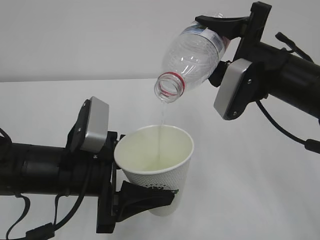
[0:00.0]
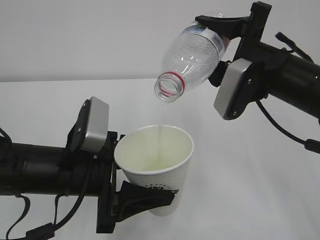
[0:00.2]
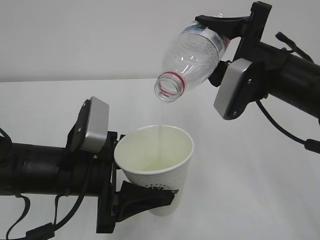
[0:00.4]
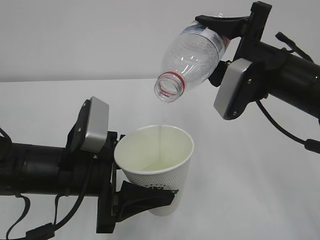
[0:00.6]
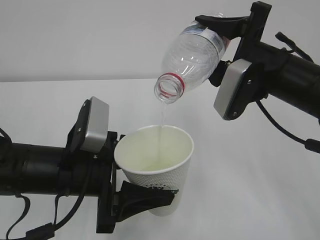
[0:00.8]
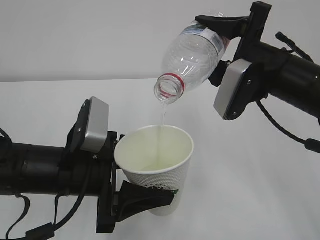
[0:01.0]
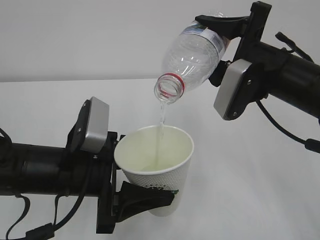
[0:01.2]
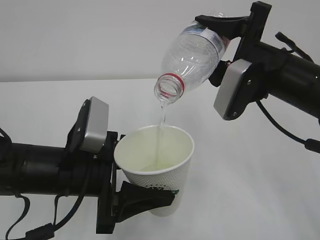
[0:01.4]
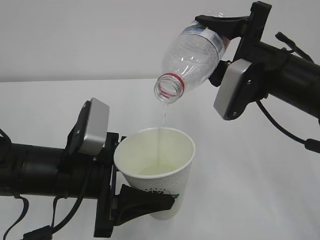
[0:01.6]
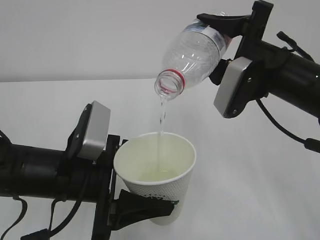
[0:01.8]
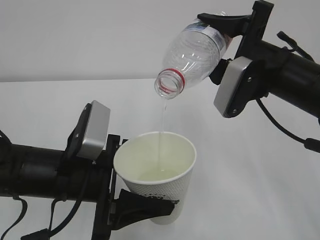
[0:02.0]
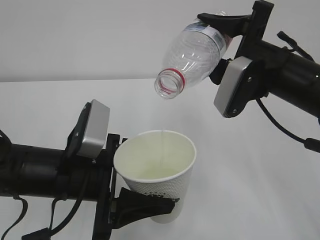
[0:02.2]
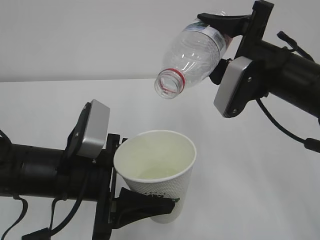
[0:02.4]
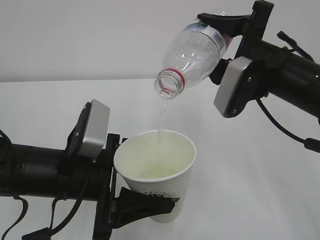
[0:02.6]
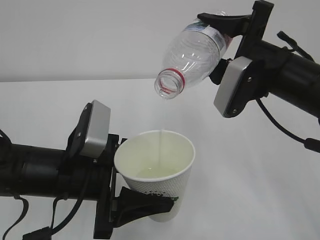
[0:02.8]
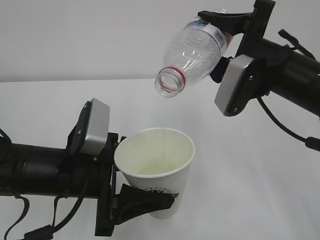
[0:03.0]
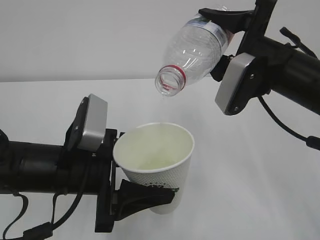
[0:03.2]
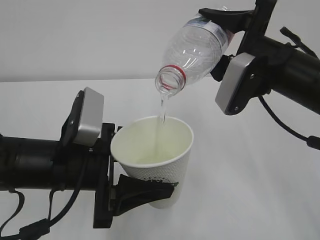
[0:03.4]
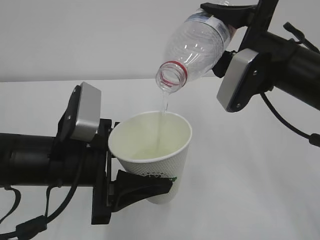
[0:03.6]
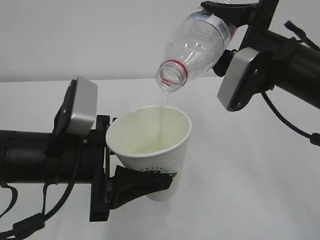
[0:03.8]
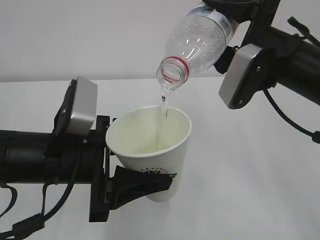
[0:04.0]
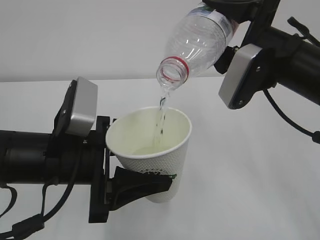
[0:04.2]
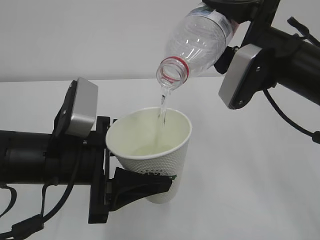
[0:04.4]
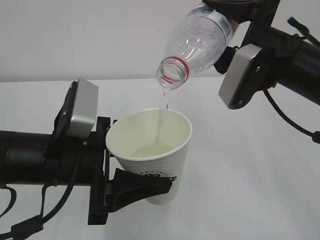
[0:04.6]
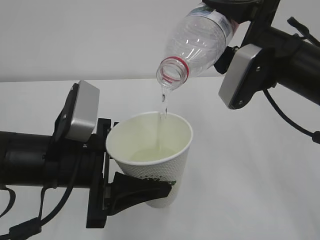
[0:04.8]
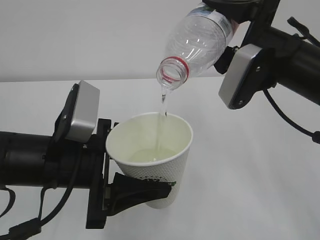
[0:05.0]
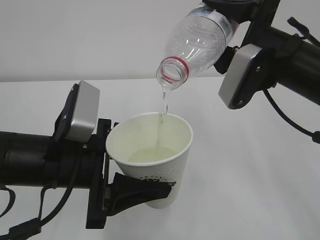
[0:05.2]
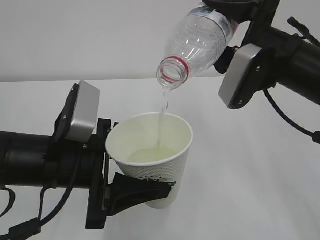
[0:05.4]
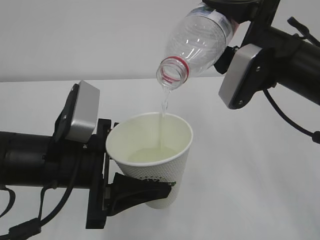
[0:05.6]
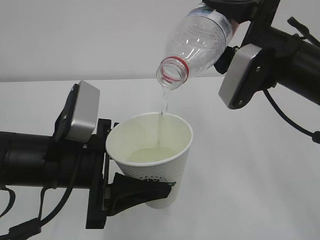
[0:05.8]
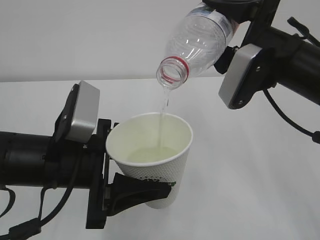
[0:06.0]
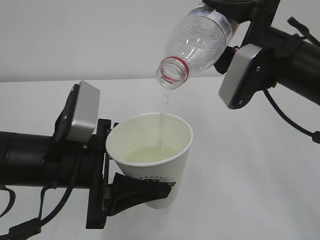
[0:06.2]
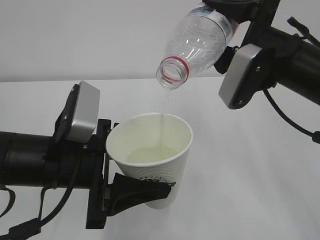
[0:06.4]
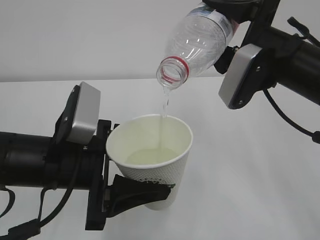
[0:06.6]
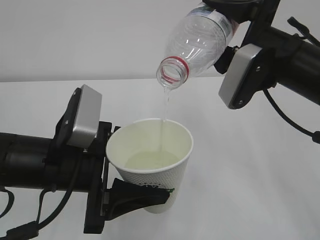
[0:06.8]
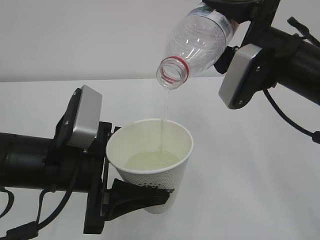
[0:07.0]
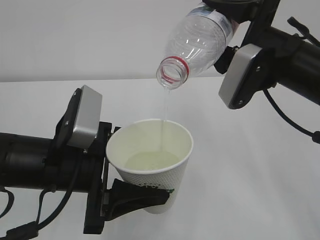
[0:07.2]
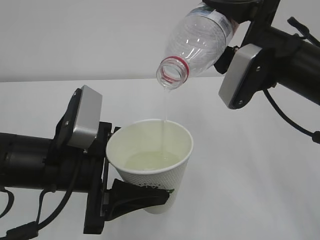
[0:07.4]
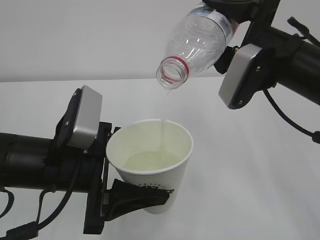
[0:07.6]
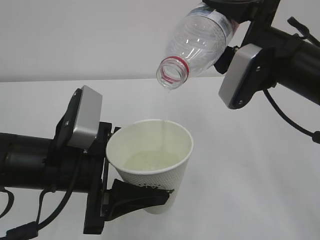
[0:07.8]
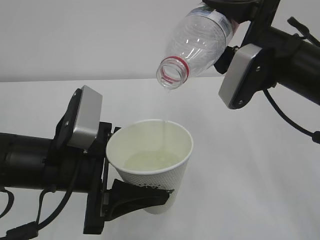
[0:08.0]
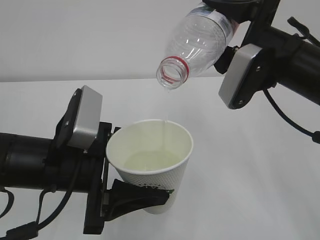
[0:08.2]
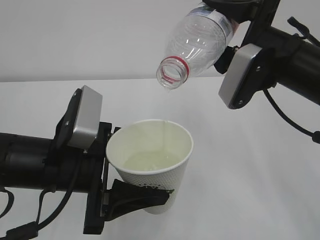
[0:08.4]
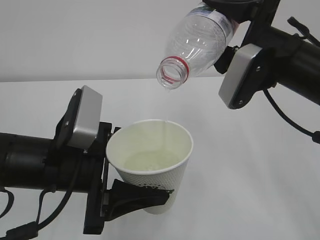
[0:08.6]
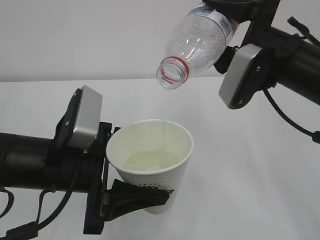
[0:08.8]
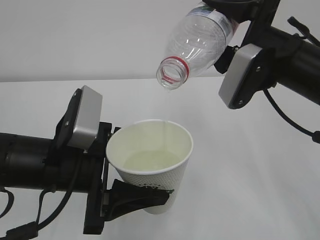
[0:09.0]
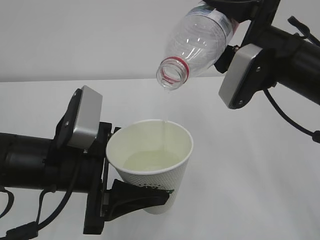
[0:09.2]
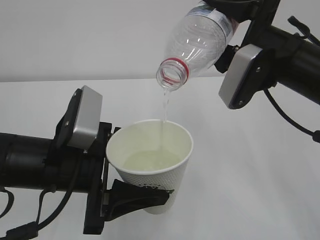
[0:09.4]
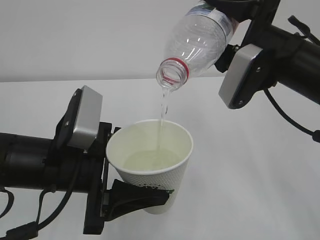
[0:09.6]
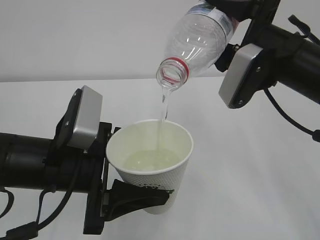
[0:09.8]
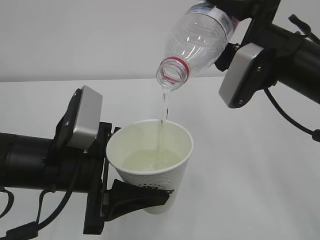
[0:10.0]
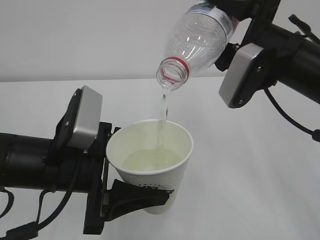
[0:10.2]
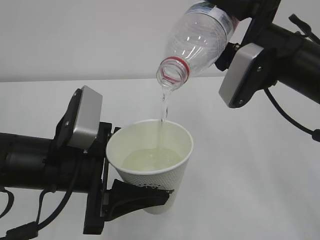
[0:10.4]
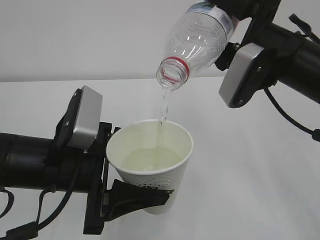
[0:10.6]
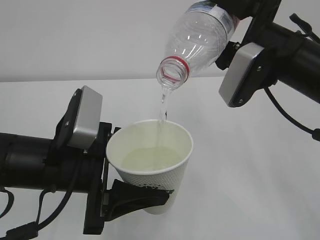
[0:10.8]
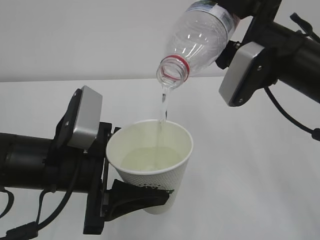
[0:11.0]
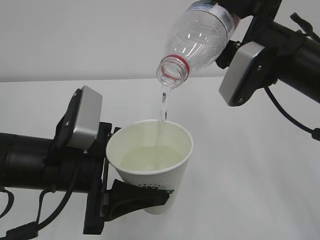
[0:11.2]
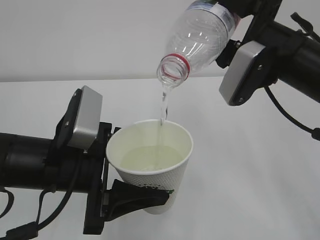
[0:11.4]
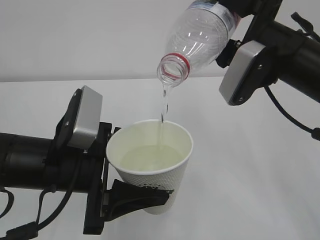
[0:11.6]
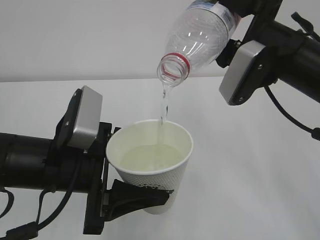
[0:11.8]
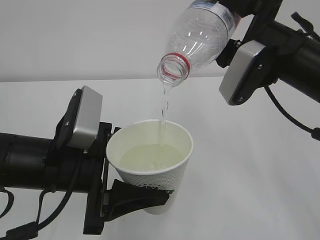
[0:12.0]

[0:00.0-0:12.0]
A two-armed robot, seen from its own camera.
0:00.0 to 0:03.0: Both grippers stay put.
0:04.4 to 0:12.0: Both grippers stay about where they are.

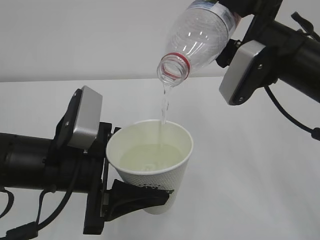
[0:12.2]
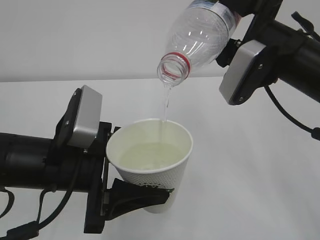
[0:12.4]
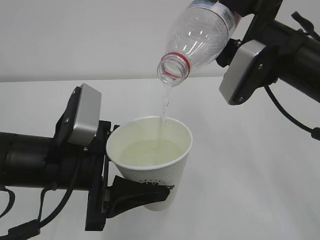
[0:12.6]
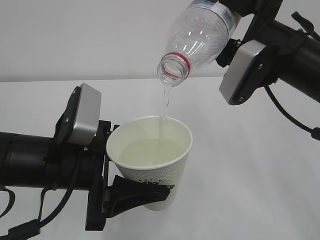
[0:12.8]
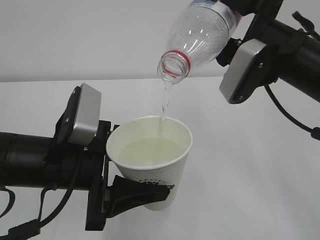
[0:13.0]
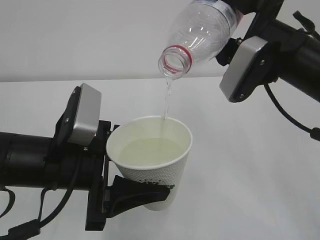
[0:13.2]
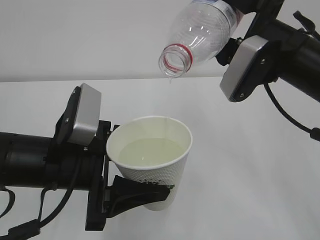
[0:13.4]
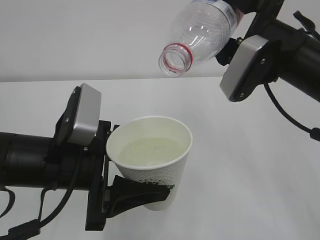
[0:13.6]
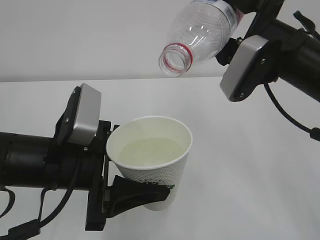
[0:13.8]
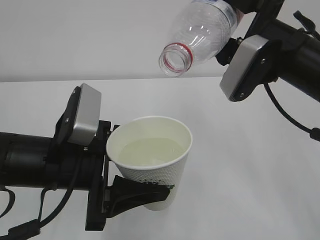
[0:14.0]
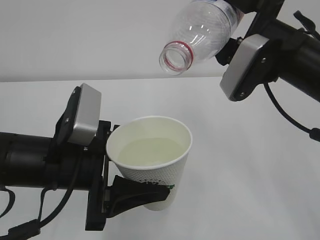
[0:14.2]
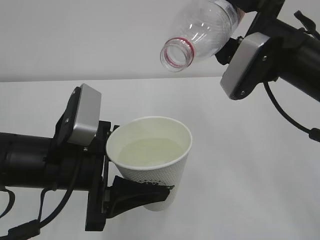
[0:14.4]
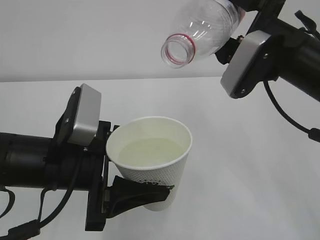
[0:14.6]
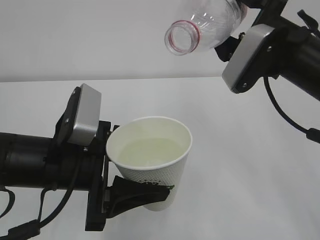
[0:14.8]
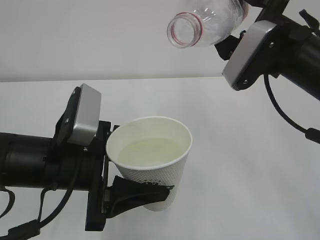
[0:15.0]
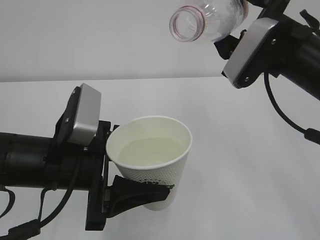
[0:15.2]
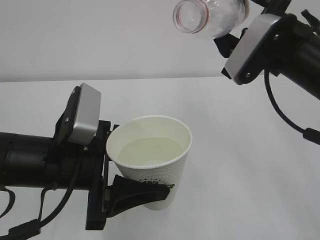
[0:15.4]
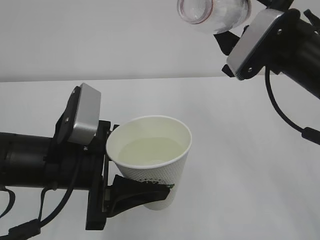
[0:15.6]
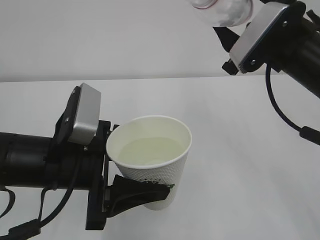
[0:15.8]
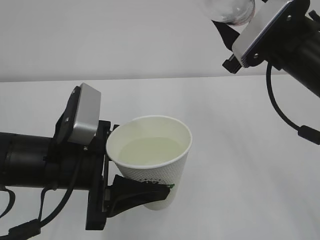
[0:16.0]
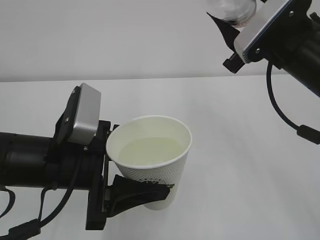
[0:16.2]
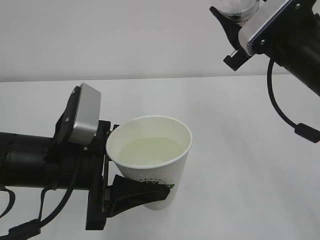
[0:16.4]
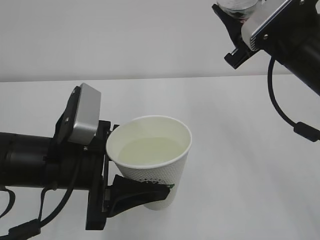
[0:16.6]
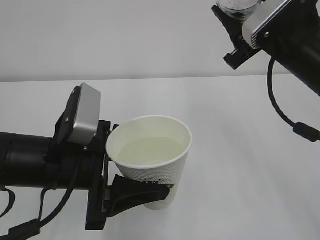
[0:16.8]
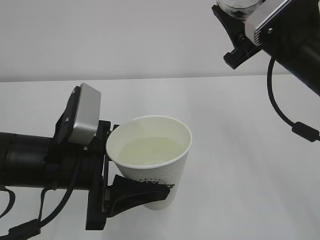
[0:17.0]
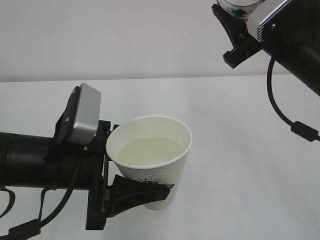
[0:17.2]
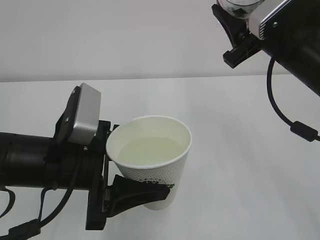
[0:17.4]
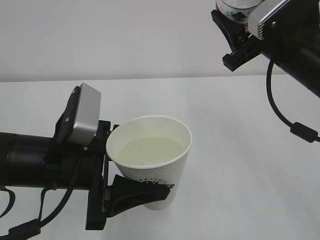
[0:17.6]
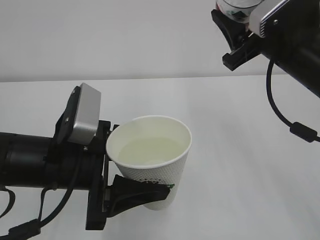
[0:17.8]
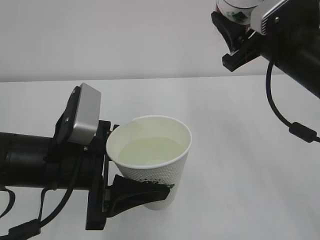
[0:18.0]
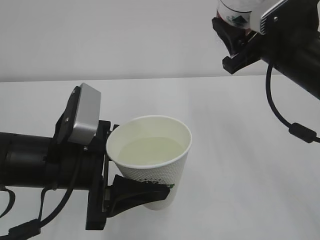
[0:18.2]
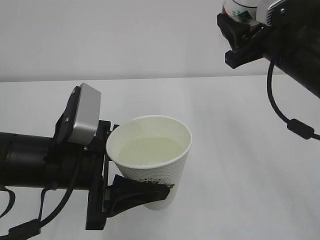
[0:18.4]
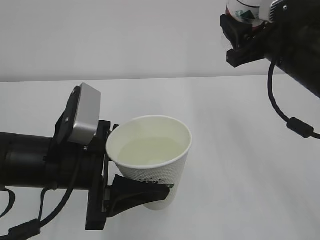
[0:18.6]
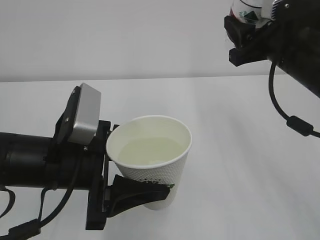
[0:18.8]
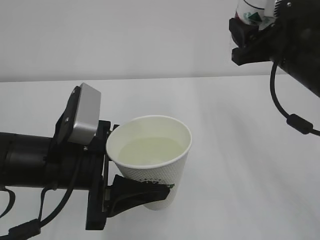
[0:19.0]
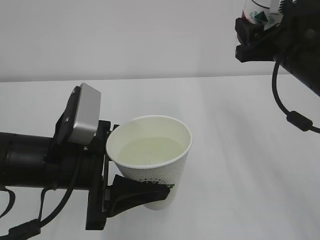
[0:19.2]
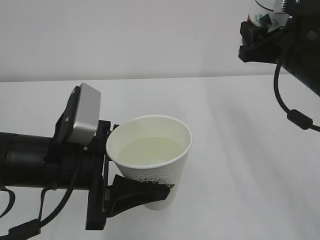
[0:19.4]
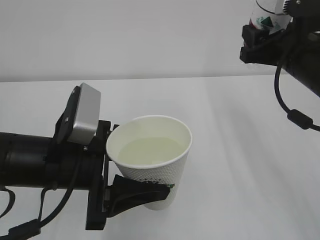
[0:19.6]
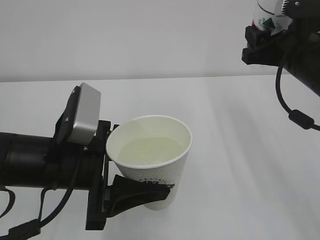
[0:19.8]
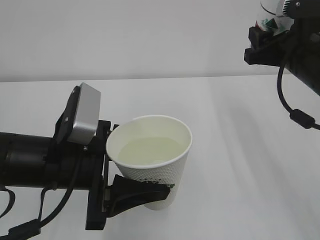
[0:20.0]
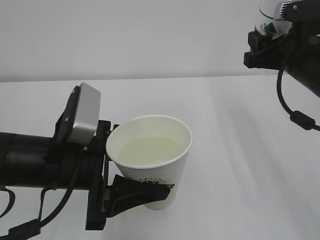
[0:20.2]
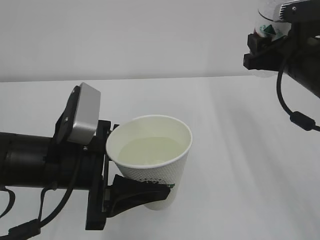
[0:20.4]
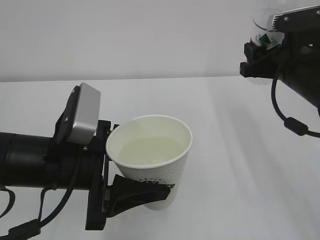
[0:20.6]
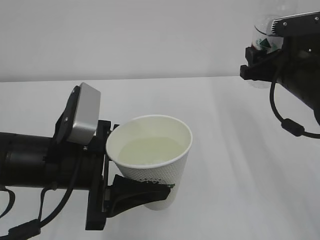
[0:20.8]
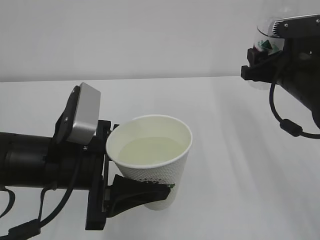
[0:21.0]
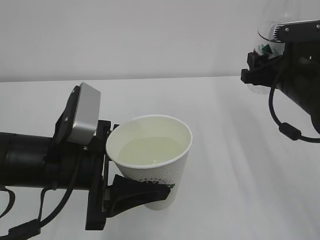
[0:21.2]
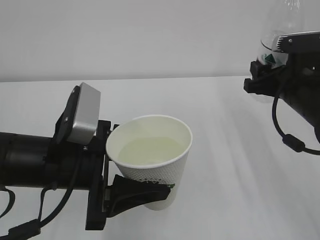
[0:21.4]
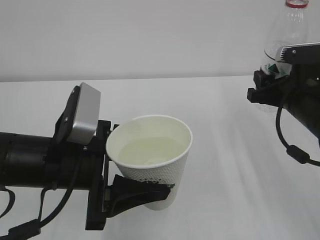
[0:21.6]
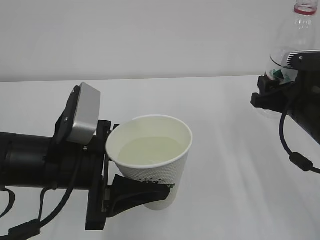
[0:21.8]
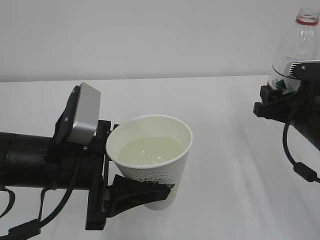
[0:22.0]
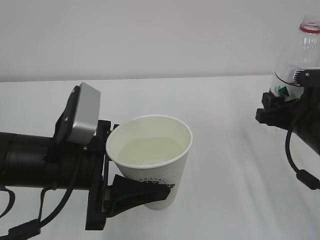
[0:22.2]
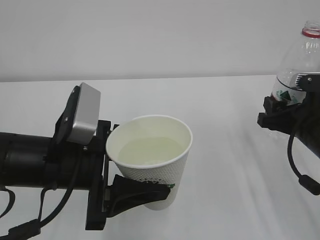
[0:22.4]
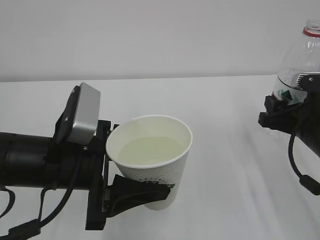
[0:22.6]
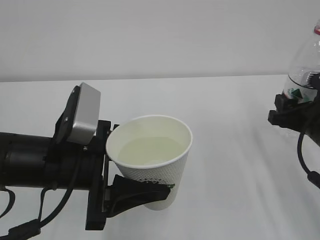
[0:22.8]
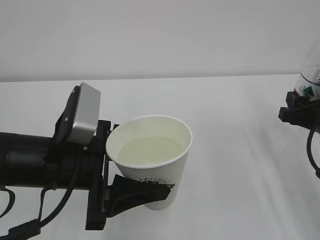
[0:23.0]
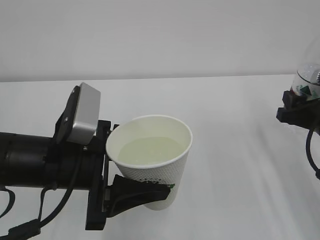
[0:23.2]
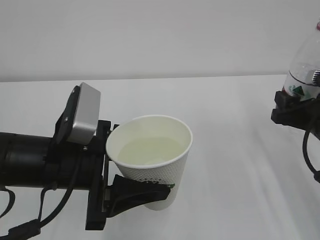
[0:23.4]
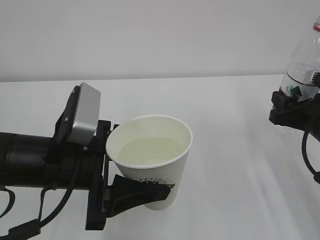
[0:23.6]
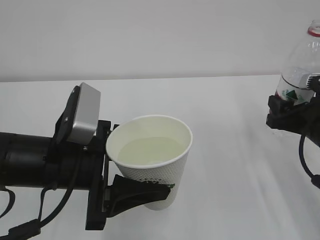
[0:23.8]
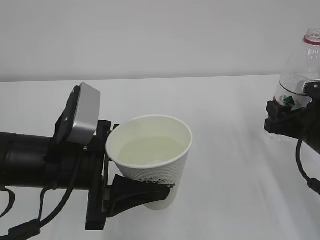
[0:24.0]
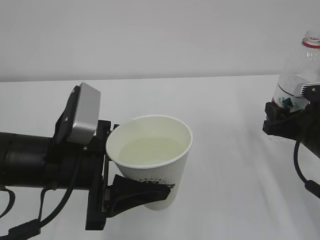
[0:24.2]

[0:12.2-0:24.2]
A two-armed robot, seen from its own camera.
0:12.2 to 0:13.8: Both grippers stay about where they are.
0:13.8 to 0:15.2: There are only small adjustments of the grippers.
0:19.8 to 0:21.2: The grippers stay close to where they were, moving slightly.
0:21.2 to 0:22.6: The right gripper moves backward and downward, some 10 cm.
0:22.6 to 0:24.2: The grippers stay close to where they were, moving slightly.
